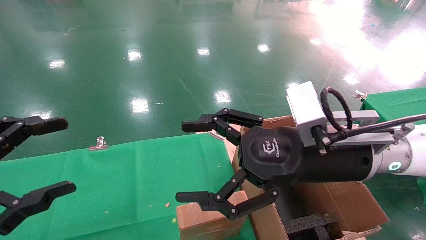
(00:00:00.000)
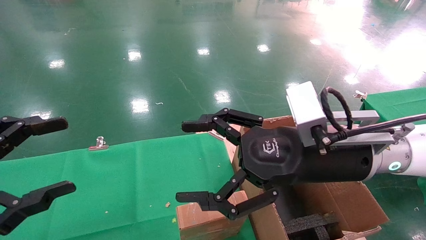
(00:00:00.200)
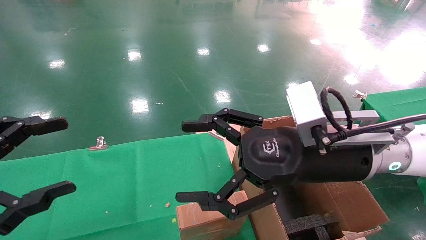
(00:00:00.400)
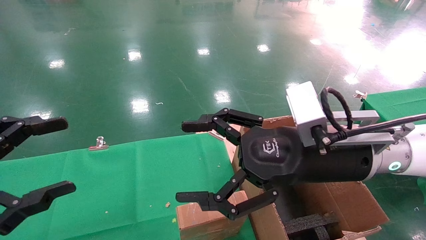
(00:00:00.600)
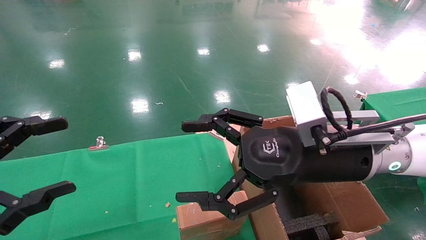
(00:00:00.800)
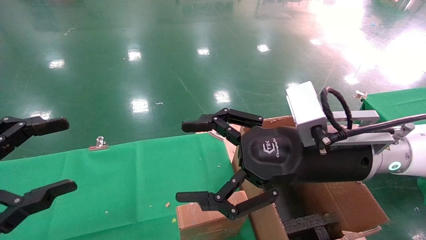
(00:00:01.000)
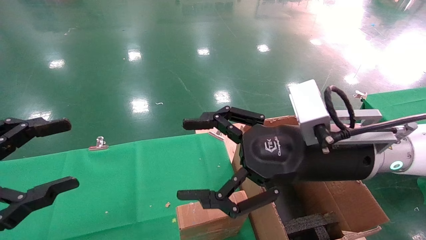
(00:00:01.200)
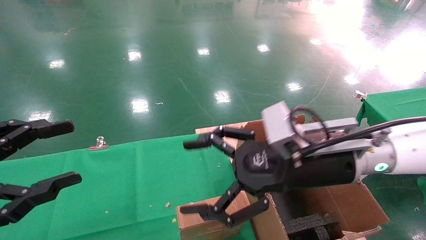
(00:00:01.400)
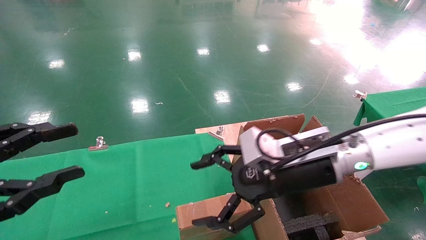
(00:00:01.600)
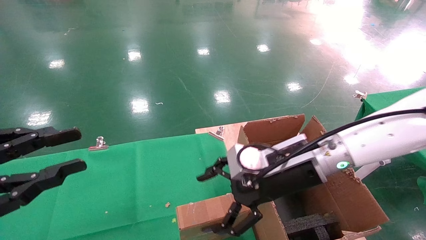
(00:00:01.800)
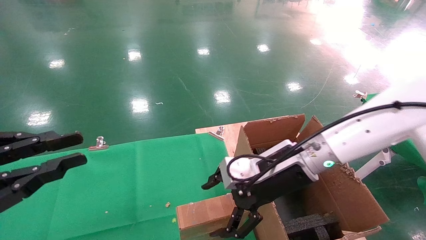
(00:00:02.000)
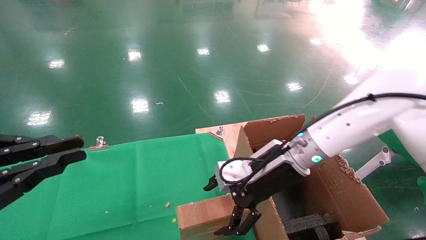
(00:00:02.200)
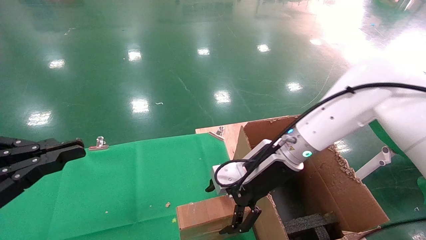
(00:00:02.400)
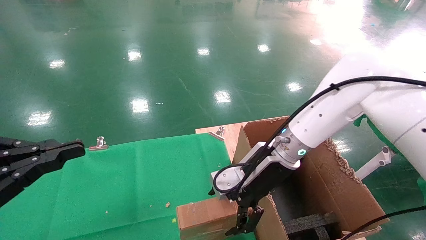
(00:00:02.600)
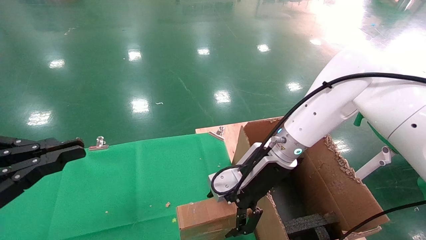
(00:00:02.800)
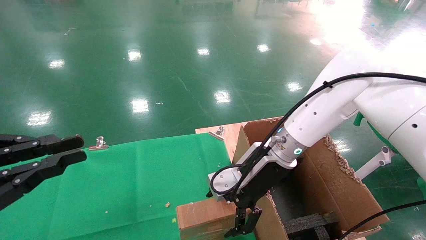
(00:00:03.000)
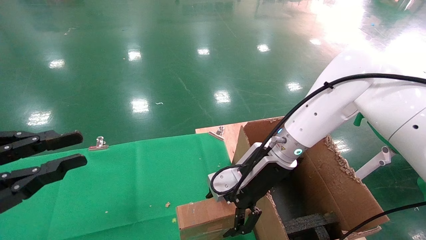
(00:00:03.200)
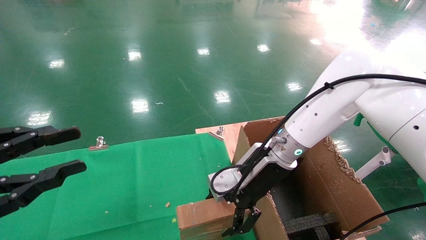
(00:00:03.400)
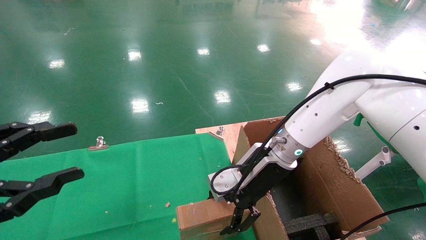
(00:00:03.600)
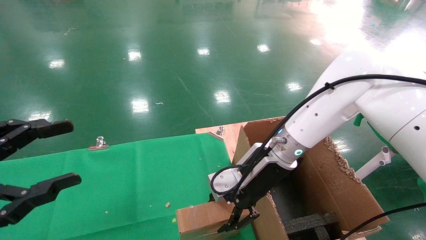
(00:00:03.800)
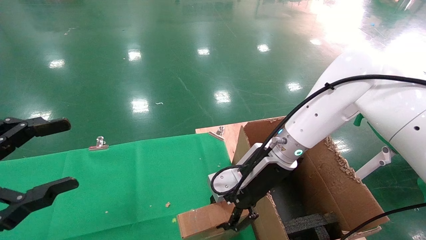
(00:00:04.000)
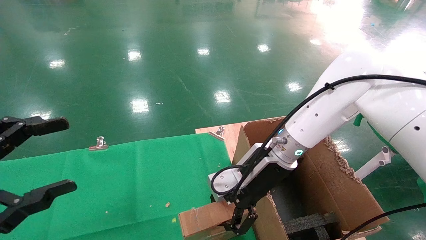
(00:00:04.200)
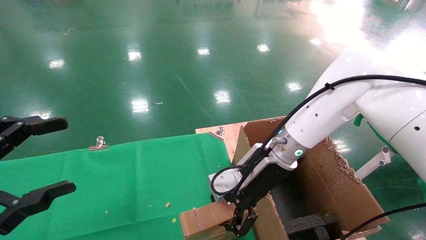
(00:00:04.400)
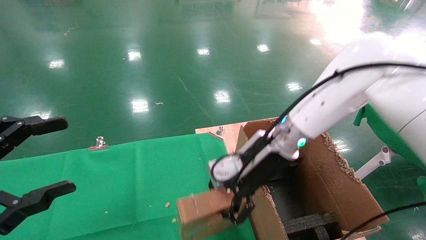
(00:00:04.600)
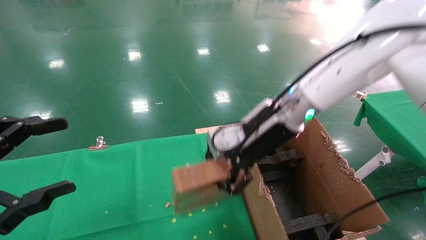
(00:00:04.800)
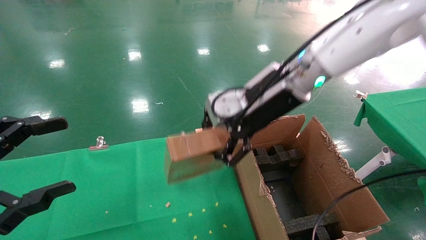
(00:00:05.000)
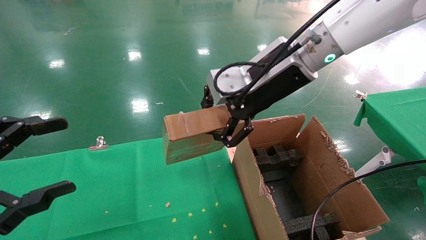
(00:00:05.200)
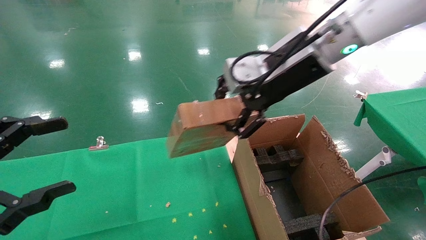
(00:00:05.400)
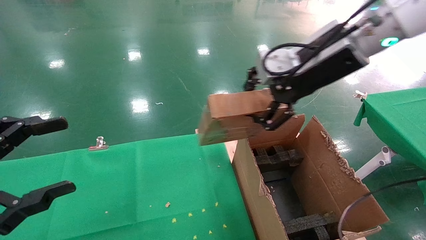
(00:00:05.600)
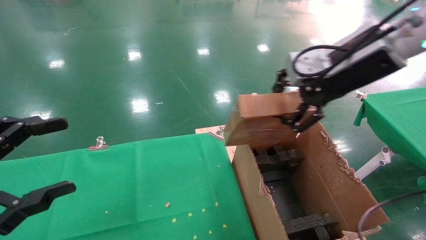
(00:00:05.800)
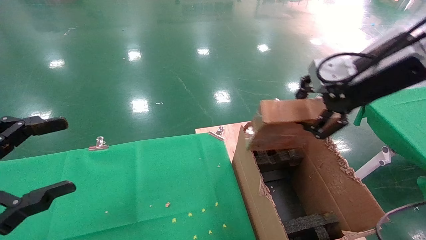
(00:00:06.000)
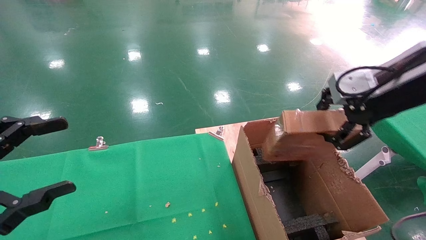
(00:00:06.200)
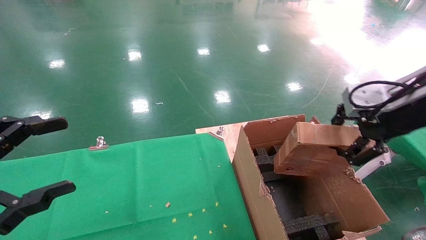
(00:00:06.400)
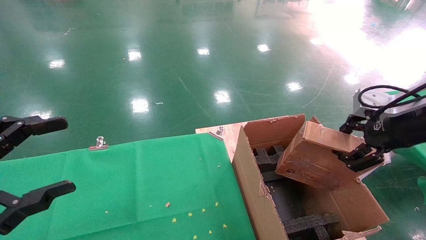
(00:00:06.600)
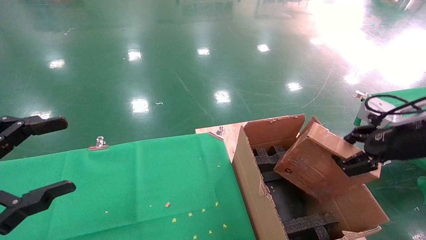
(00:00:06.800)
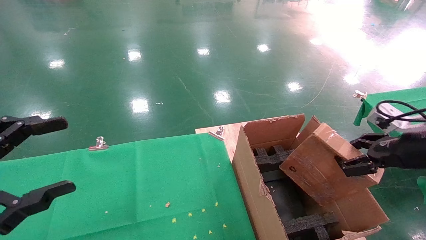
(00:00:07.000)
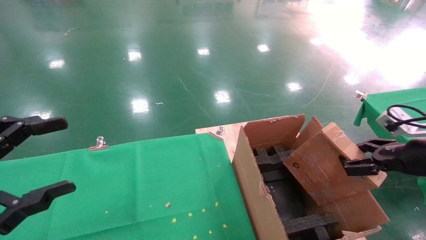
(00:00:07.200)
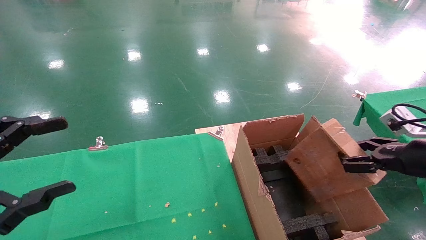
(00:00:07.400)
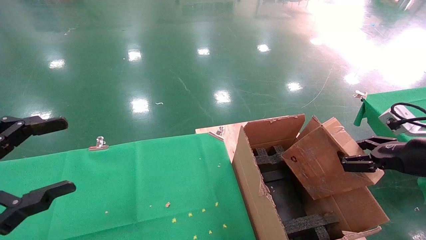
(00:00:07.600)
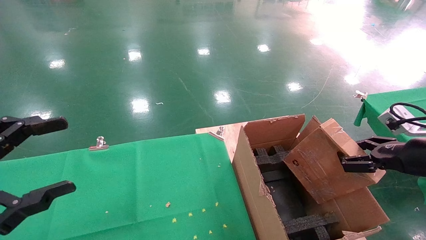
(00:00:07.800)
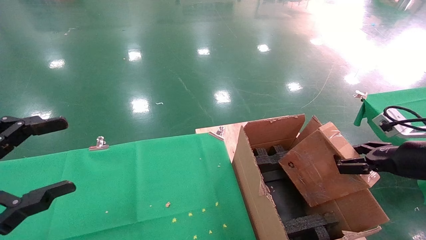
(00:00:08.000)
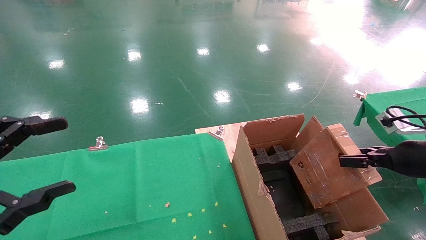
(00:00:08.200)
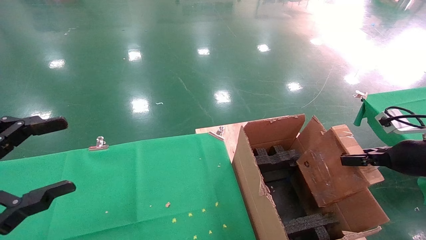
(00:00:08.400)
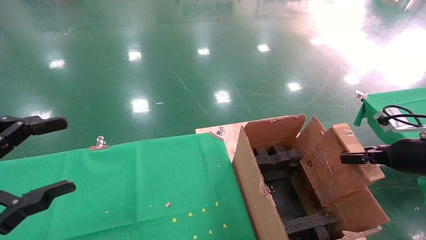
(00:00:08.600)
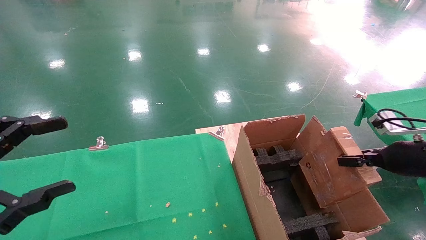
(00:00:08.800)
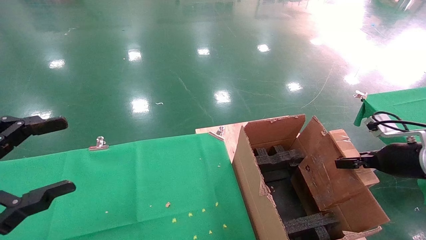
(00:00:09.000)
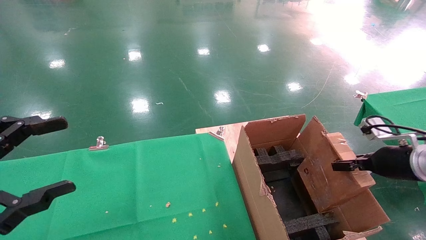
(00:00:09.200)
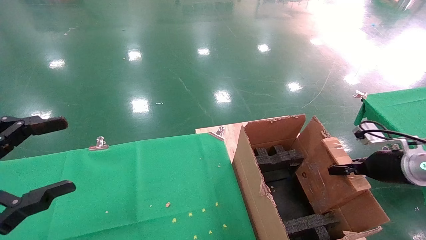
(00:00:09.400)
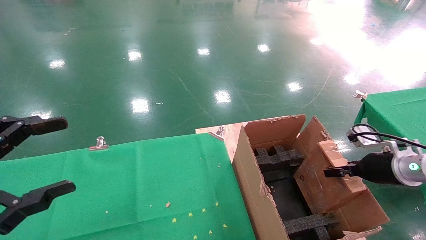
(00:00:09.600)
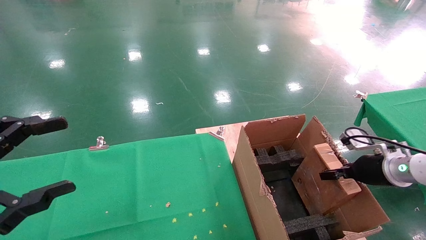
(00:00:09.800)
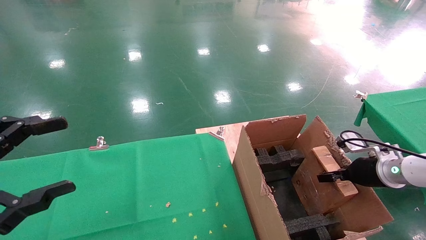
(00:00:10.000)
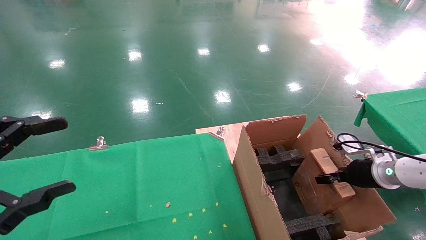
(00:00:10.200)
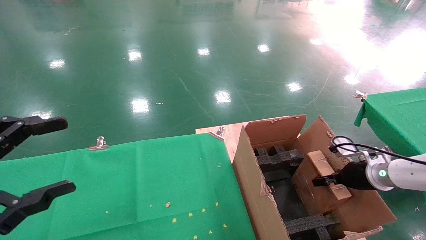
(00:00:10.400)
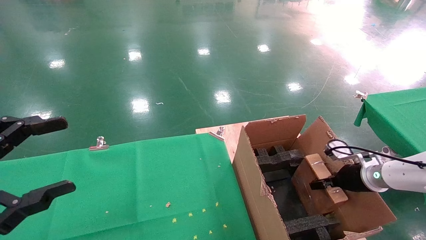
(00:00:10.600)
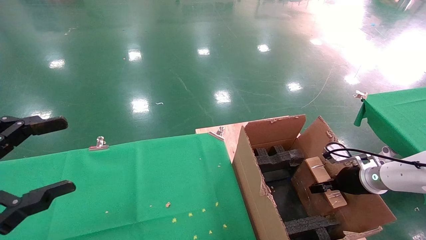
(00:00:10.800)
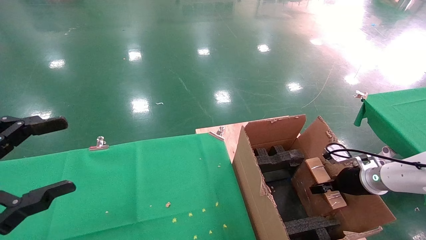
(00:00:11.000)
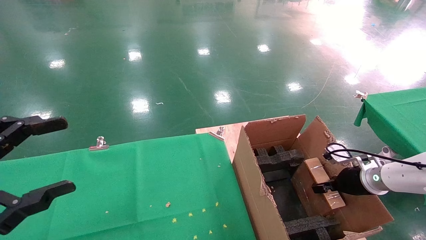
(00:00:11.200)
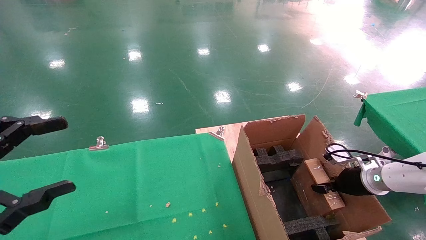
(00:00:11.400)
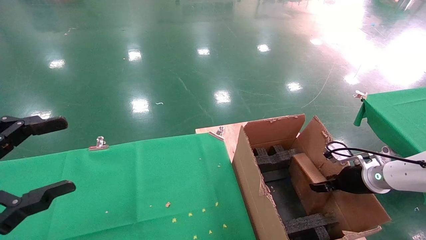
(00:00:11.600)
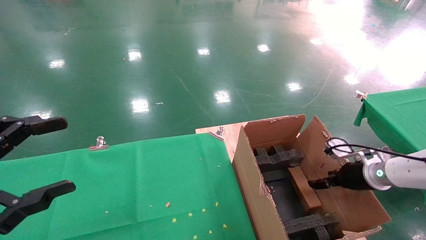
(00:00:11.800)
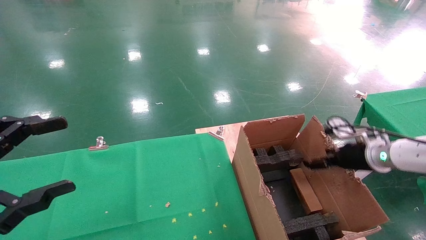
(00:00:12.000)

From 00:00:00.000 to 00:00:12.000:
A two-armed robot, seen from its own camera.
Task of the whole recording: using a robotic arm to pick up a cardboard box and palace it the carton.
Step, from 00:00:01.200 to 00:00:04.000: Pick up the mouse and the power cord paper box.
From 00:00:00.000 to 00:00:01.600: The right gripper shifts by approximately 5 cm.
From 00:00:01.600 to 00:00:03.000: The left gripper closes its fingers; the right gripper goes approximately 10 cm forward.
From 00:00:03.000 to 00:00:04.400: The left gripper opens. The right gripper closes.
From 00:00:04.400 to 00:00:06.000: The right gripper shifts roughly 25 cm upward, to the right and backward.
From 00:00:06.000 to 00:00:07.600: The right gripper heads downward and to the right, covering approximately 20 cm.
From 00:00:07.600 to 00:00:09.000: The right gripper goes approximately 5 cm forward.
From 00:00:09.000 to 00:00:10.400: The right gripper heads downward and forward, covering approximately 10 cm.
From 00:00:10.400 to 00:00:12.000: The right gripper goes about 10 cm upward, and opens.

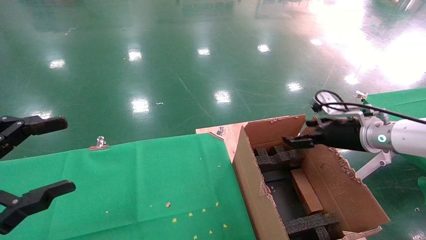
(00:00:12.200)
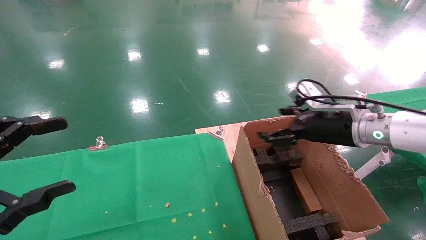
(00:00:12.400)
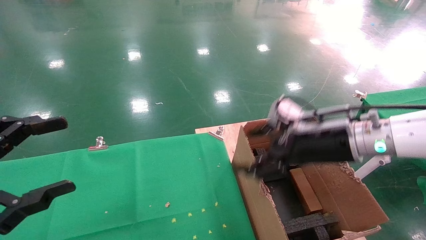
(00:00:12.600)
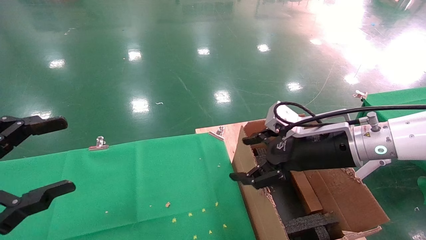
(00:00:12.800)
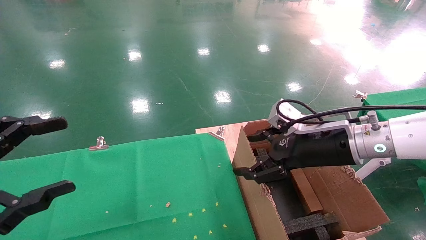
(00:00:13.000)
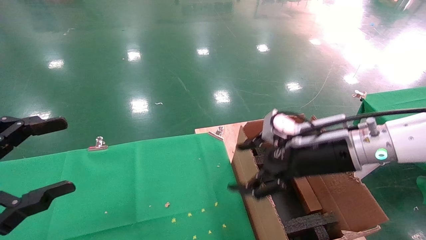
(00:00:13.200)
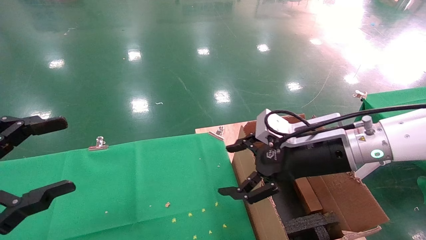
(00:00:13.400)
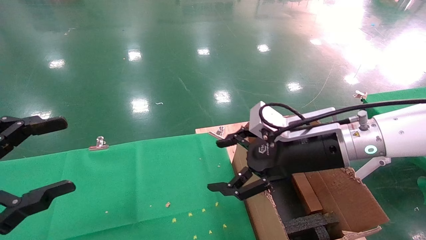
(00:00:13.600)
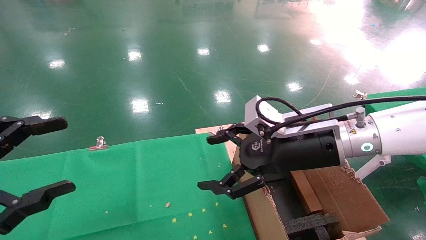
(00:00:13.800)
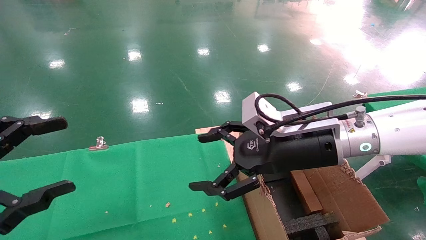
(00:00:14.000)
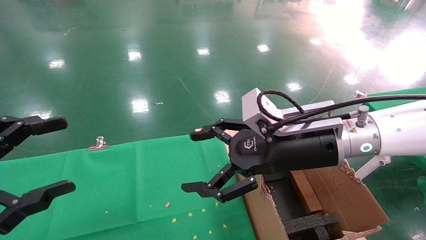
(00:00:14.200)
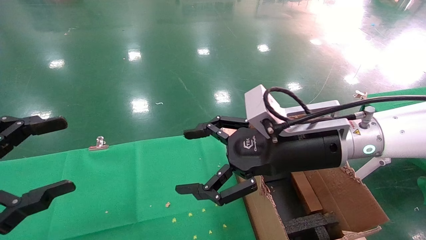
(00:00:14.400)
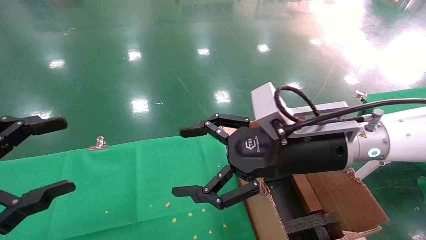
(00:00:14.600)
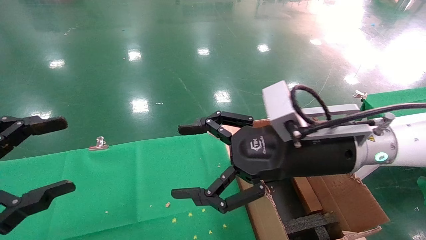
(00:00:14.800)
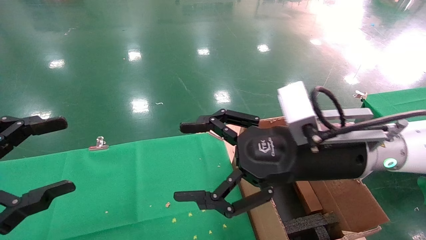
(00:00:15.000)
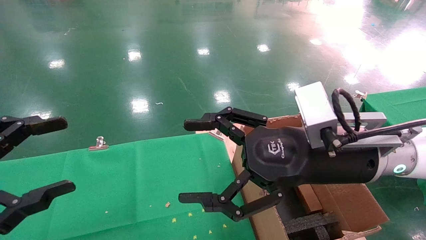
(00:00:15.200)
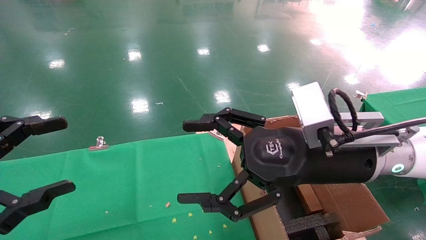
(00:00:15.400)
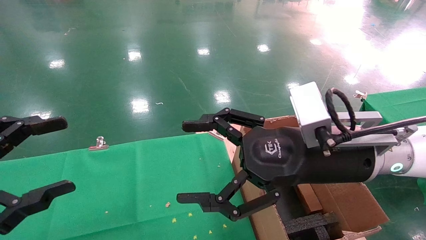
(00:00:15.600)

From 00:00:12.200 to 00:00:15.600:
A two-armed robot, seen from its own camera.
Task of the whole recording: using a robotic arm to pick up a cardboard box and palace it the carton.
From 00:00:12.200 to 00:00:13.800: The right gripper shifts some 15 cm to the left and backward.
From 00:00:13.800 to 00:00:15.600: The right gripper shifts by roughly 5 cm.
